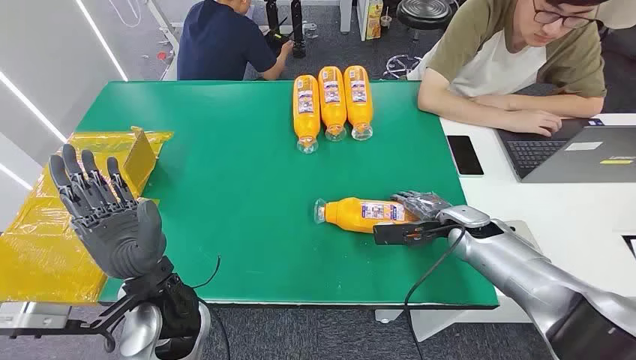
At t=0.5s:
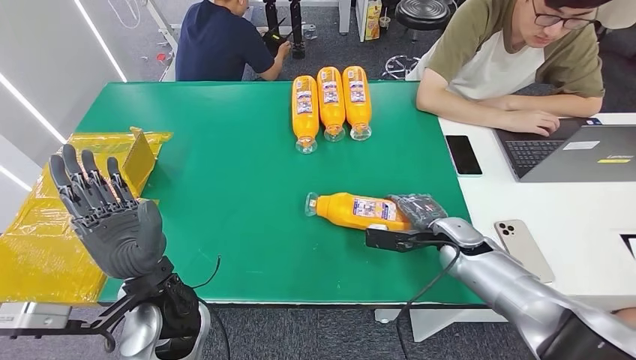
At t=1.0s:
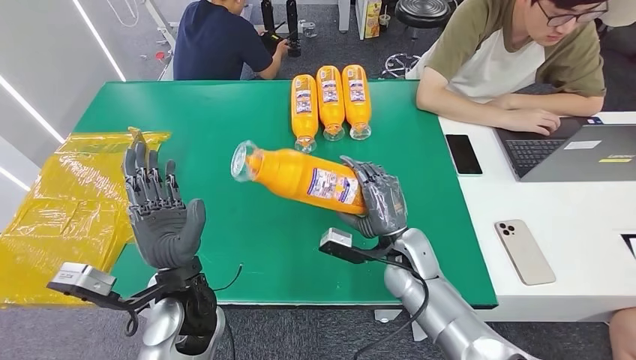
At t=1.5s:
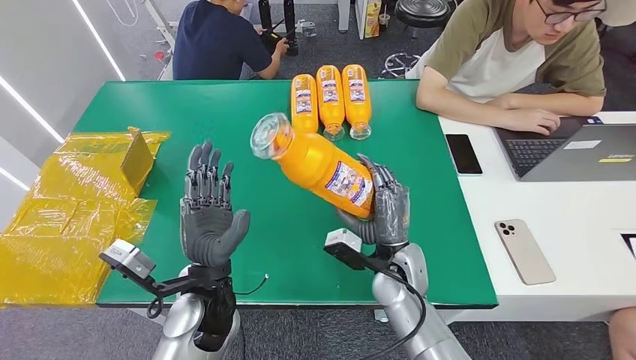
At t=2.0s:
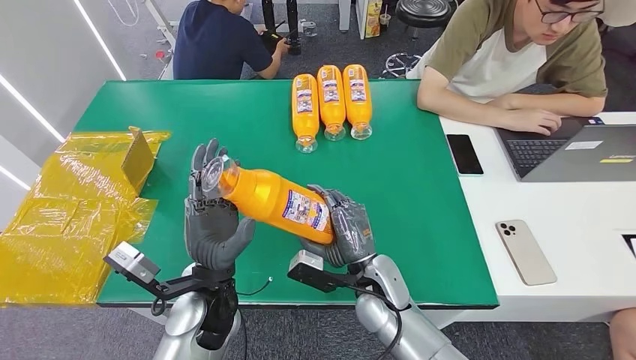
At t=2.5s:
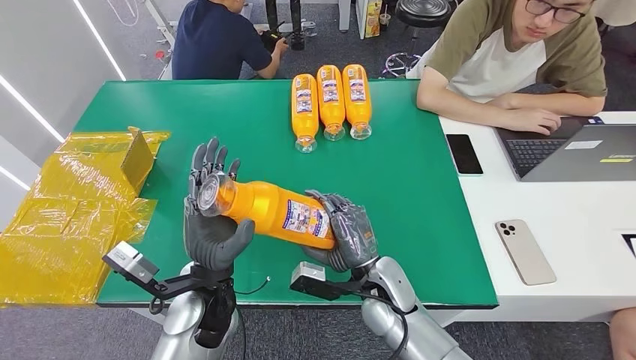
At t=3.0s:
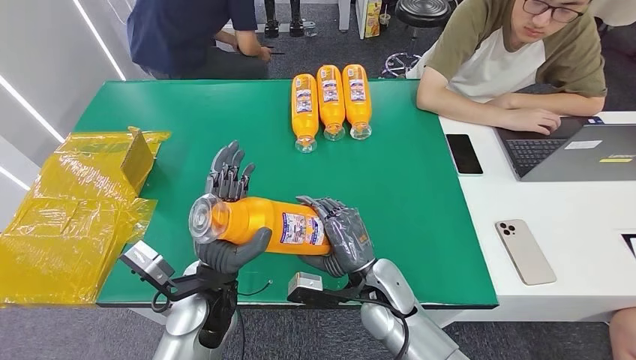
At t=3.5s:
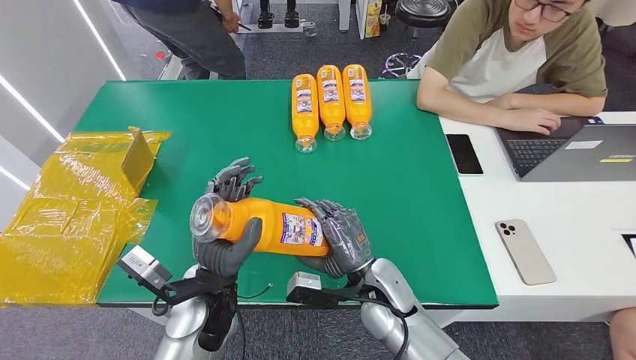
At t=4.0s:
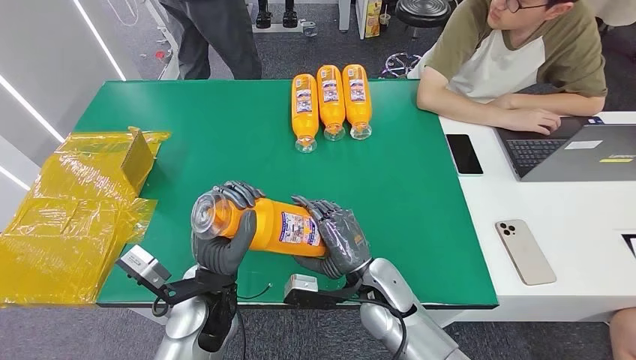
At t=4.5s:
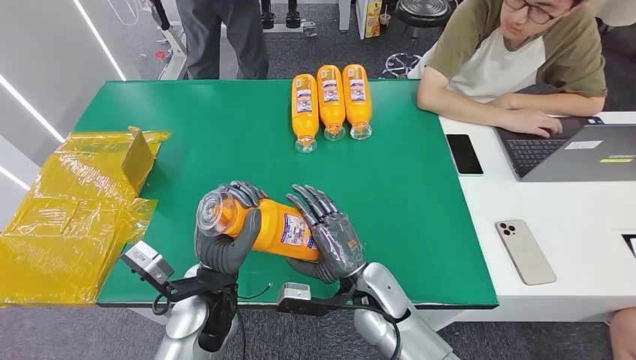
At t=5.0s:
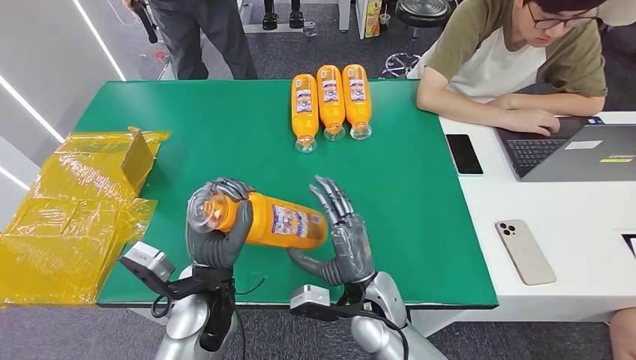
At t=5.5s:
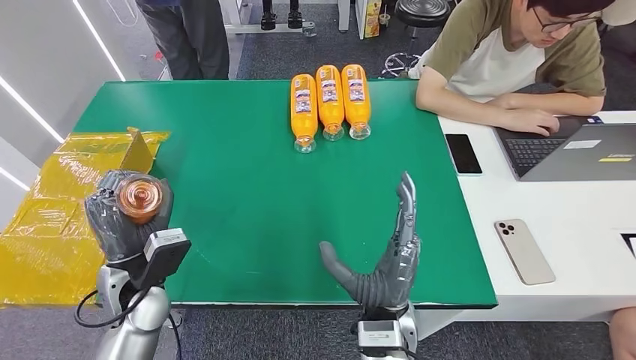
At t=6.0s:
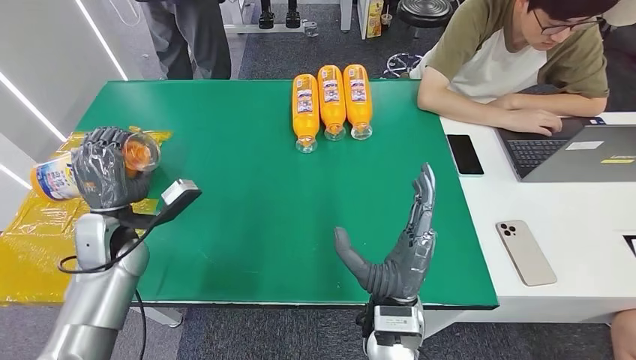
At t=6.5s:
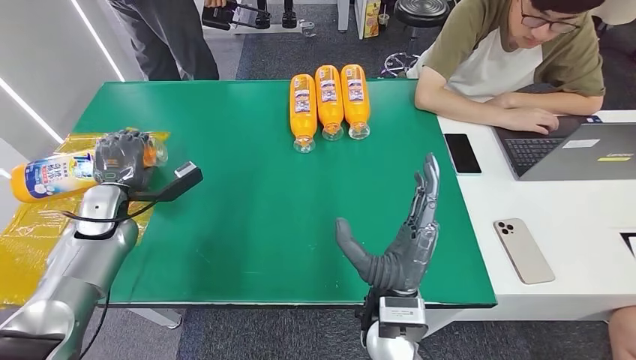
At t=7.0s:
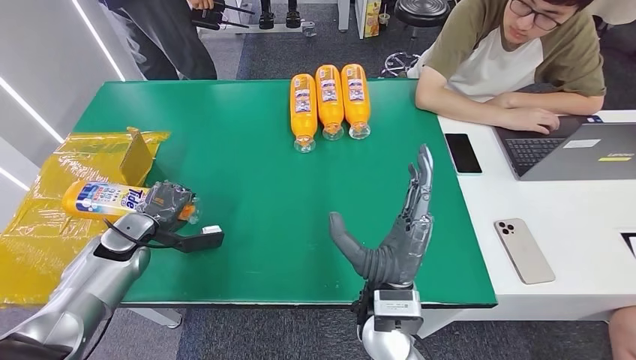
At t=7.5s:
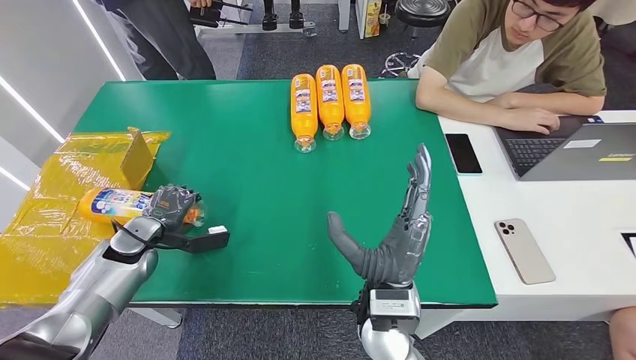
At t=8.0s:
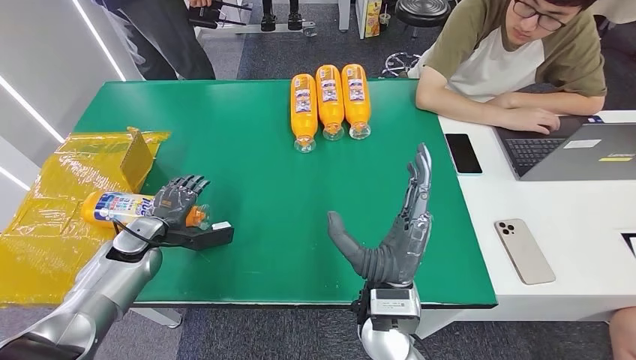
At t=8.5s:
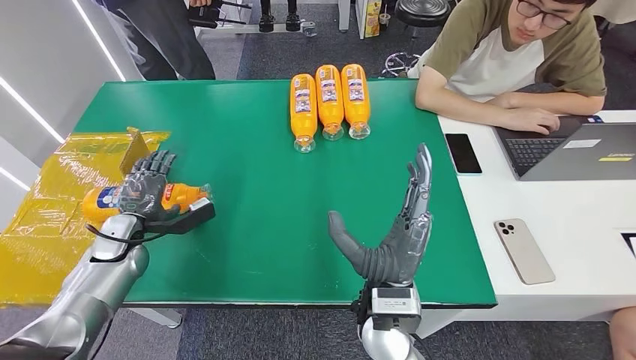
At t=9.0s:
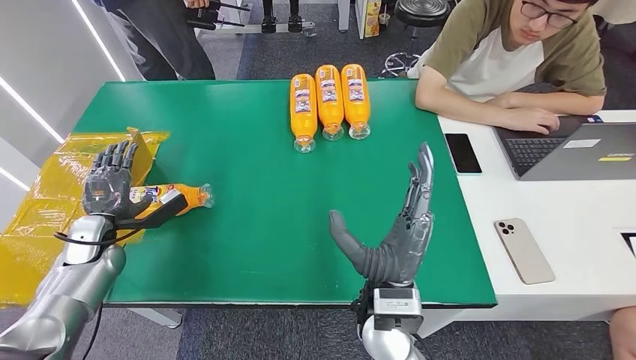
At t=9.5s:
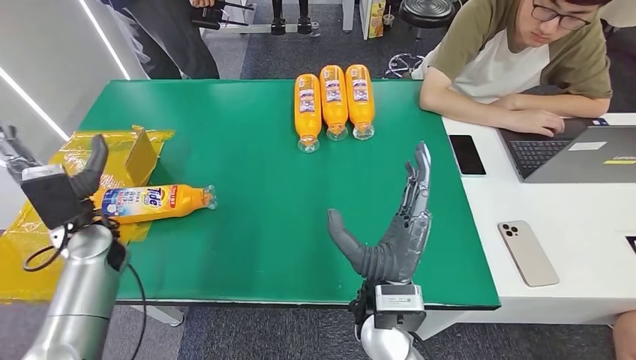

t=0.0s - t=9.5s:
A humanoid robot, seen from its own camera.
Step, t=0.0s - t=3.0s: Pick up the bottle from the table.
Step, t=3.5s - t=9.5s: Turn the bottle to the front side.
t=2.0s - t=4.0s: There are only small adjustments of the hands.
t=4.0s - t=5.5s: The left hand goes approximately 15 cm to the left; the right hand travels backward by approximately 5 cm.
t=5.5s - t=7.5s: The left hand goes some 15 cm to the left and forward.
